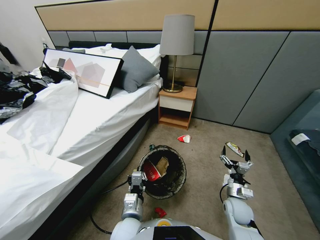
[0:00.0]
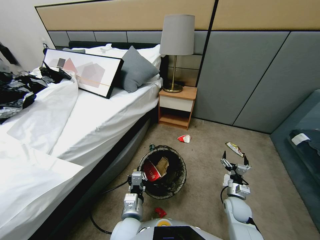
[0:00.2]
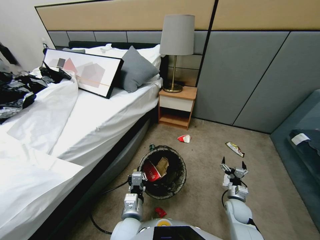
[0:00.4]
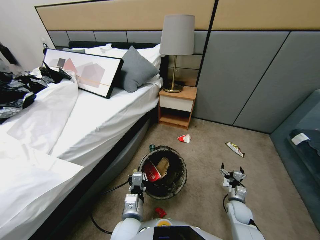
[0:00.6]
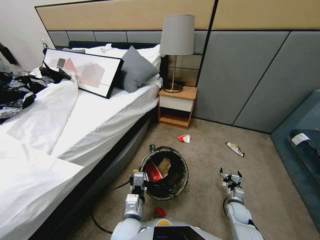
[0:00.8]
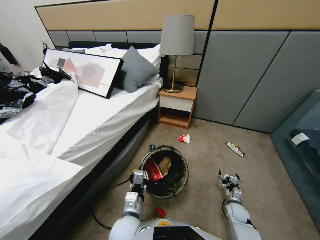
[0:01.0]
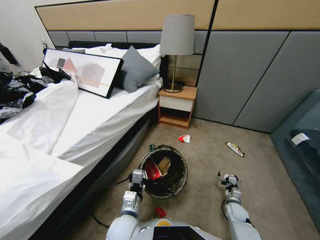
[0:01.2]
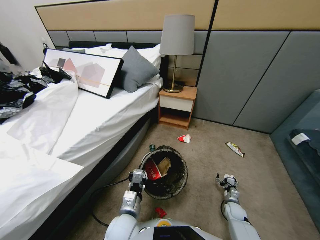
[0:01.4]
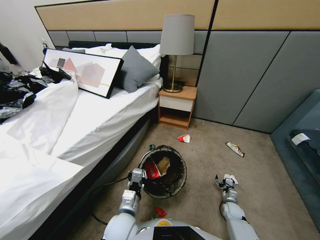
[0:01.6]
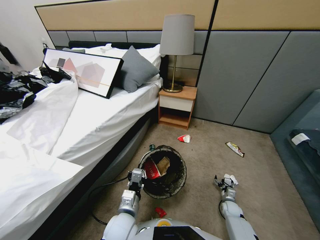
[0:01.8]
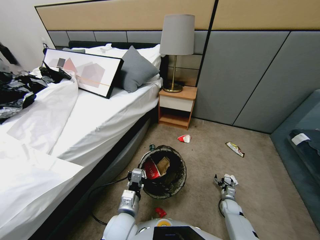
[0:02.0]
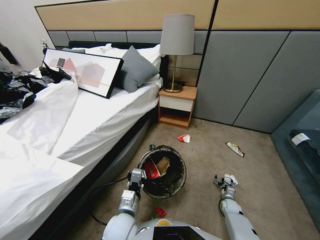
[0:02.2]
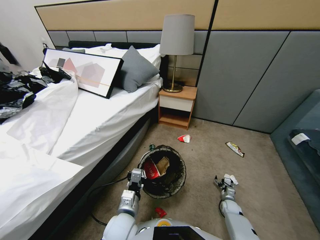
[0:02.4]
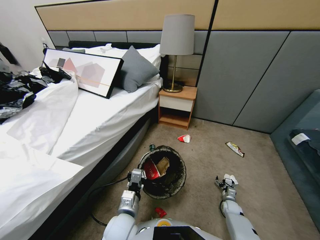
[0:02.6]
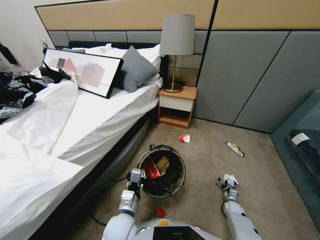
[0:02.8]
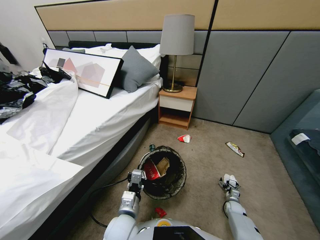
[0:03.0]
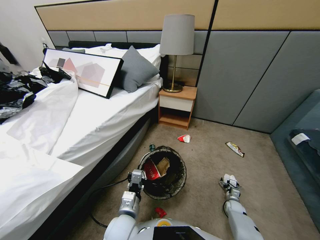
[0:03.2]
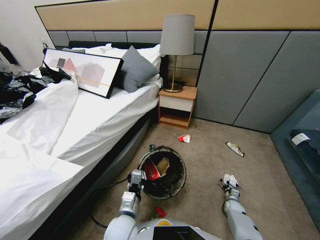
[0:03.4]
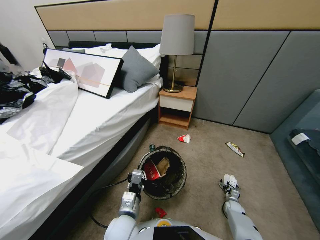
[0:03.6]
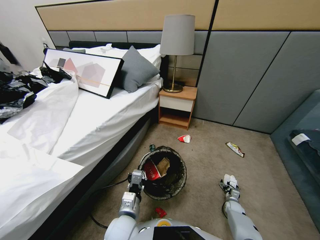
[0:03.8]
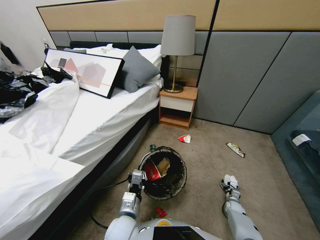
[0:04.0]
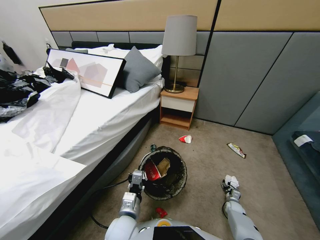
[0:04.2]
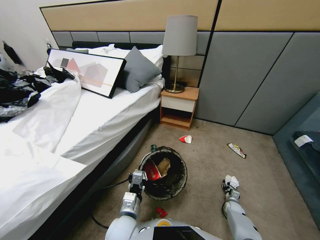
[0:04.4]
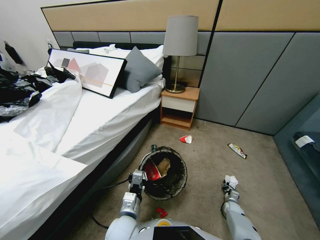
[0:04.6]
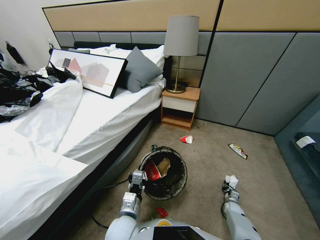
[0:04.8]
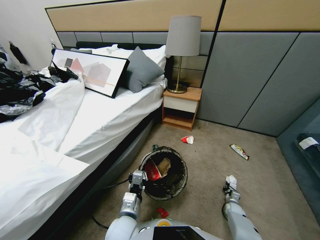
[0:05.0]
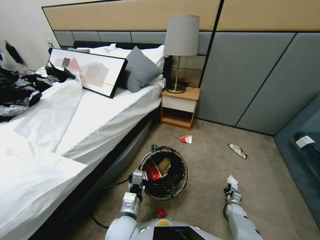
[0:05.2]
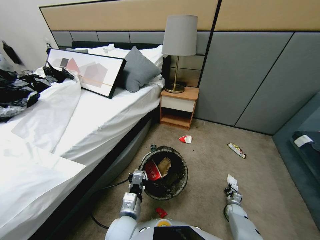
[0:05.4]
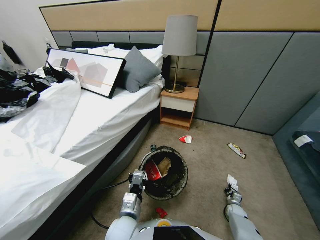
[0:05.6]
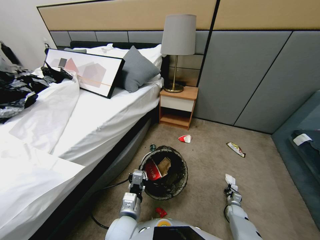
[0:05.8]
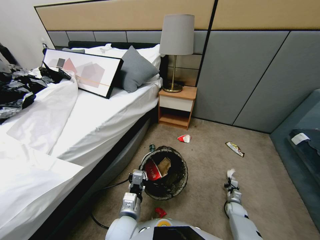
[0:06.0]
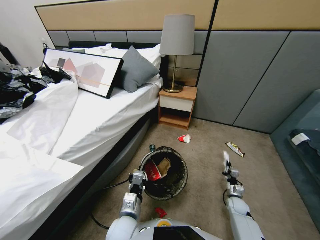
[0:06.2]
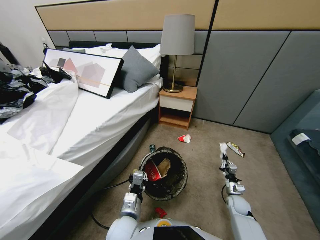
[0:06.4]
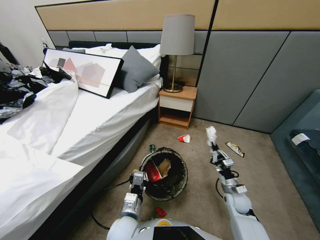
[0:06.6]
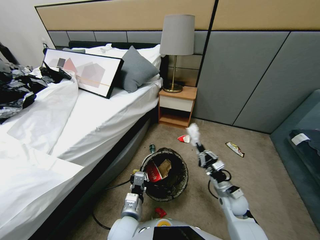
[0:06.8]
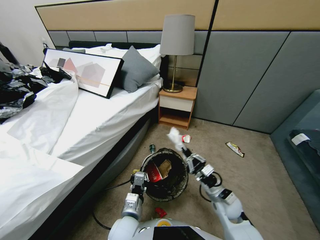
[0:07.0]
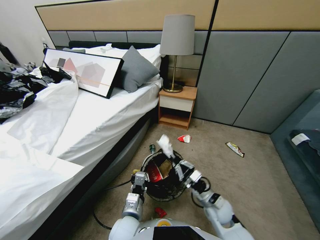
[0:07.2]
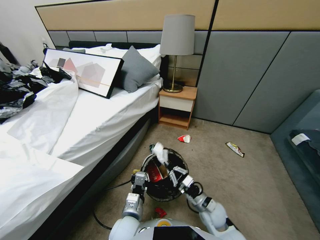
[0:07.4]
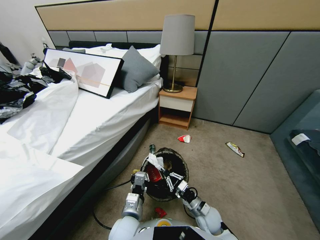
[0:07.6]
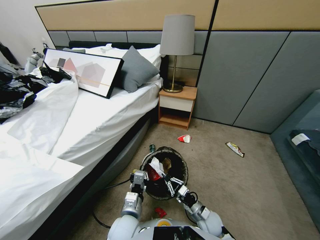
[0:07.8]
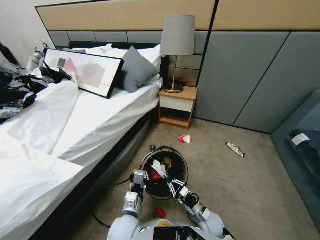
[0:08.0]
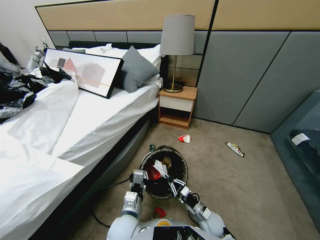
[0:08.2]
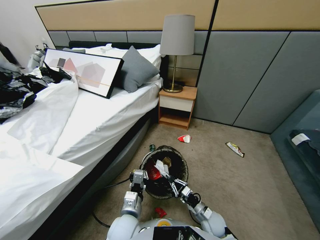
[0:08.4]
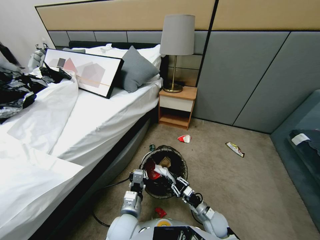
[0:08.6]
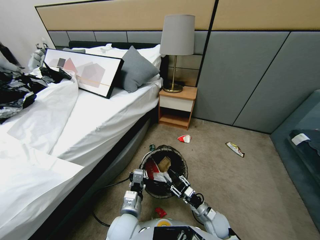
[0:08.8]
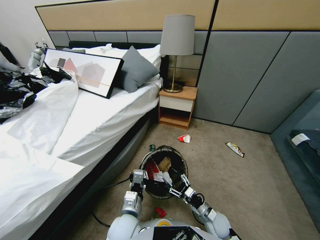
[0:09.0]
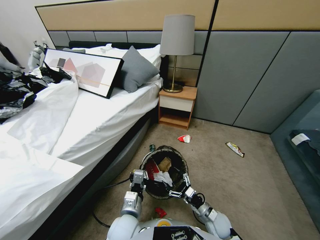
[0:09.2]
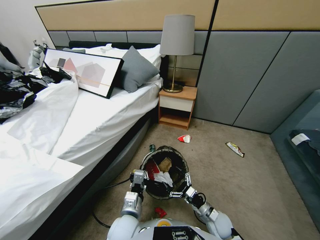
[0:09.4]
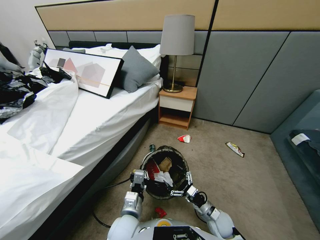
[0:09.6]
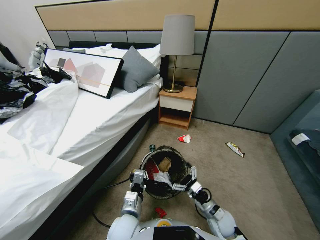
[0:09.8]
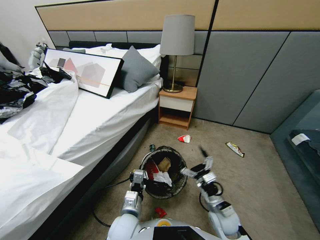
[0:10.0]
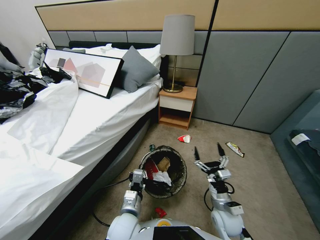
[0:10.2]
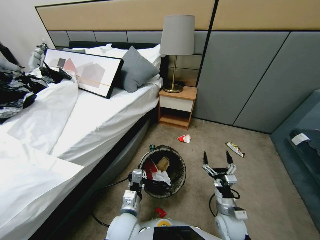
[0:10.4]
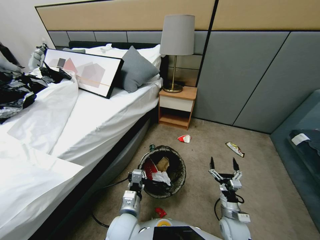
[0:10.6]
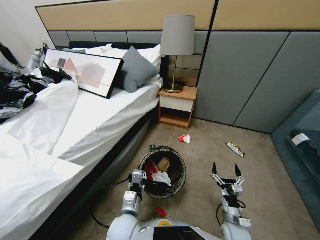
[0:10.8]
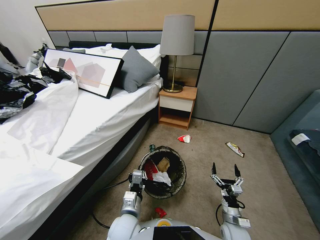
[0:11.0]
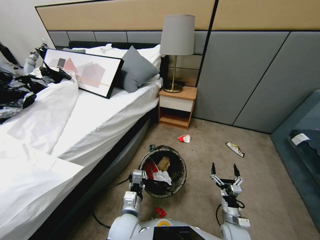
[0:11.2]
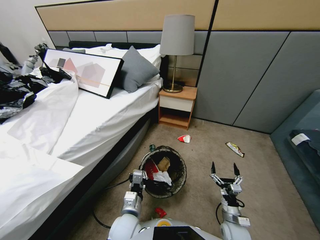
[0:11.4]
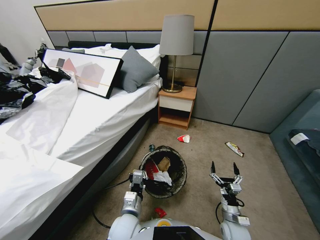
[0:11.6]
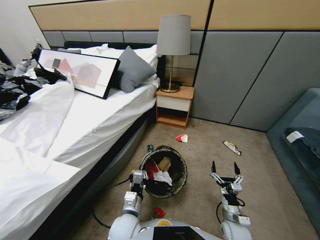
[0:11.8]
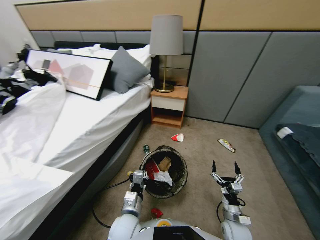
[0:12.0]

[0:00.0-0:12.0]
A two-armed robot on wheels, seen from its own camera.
Task of the whole recording: Pick up the trash bin, then pick up the garbage from the floor and place it into the trash bin.
0:00.0 to 0:01.6: The right gripper goes approximately 20 cm downward and to the right.
0:01.6 to 0:03.0: The right gripper changes place by approximately 5 cm.
0:03.0 to 0:04.4: The right gripper closes up.
0:04.4 to 0:06.0: The right gripper travels upward by approximately 5 cm, and closes its fingers.
0:06.0 to 0:07.6: The right gripper shifts about 25 cm to the left and upward.
0:07.6 to 0:09.0: The right gripper opens.

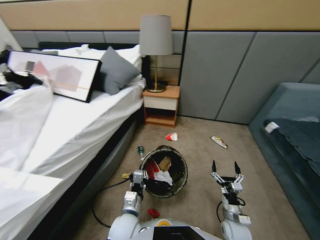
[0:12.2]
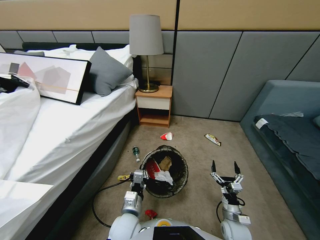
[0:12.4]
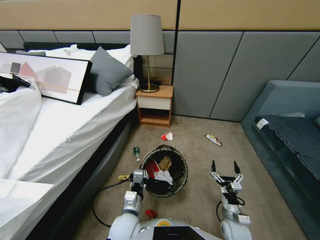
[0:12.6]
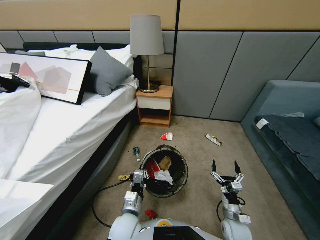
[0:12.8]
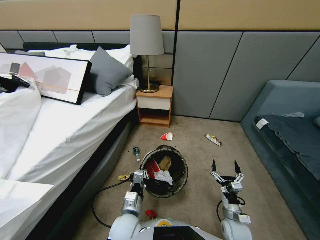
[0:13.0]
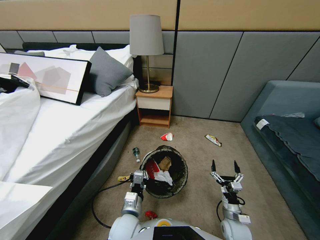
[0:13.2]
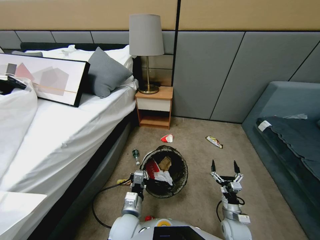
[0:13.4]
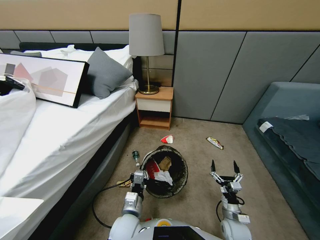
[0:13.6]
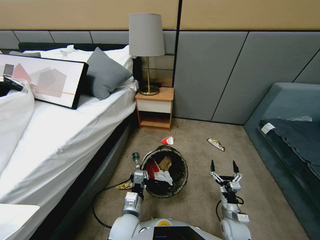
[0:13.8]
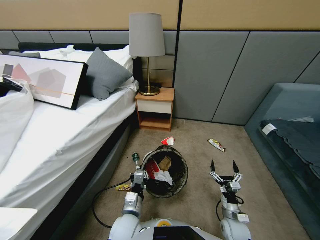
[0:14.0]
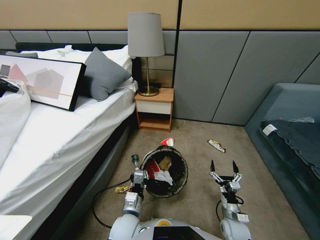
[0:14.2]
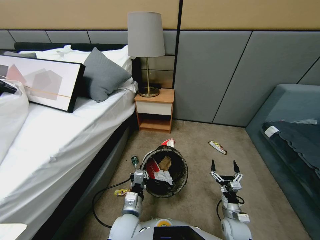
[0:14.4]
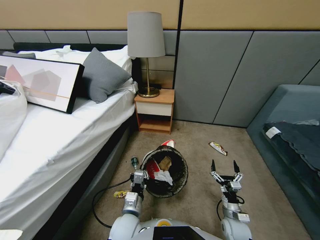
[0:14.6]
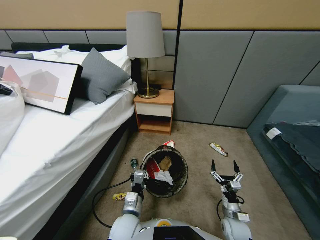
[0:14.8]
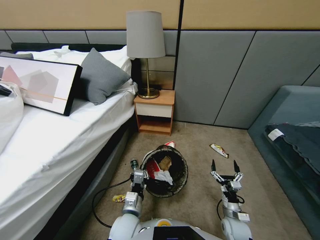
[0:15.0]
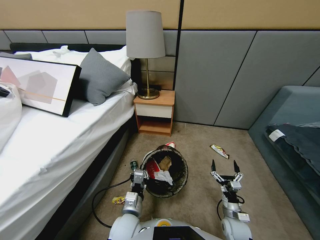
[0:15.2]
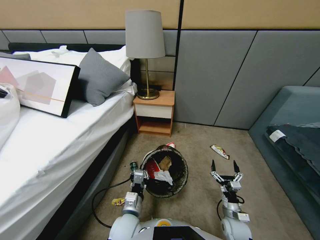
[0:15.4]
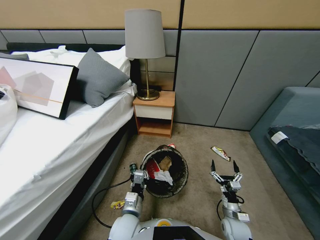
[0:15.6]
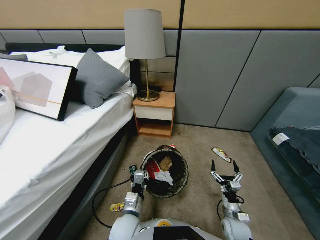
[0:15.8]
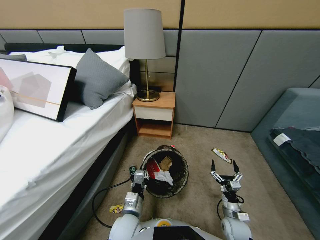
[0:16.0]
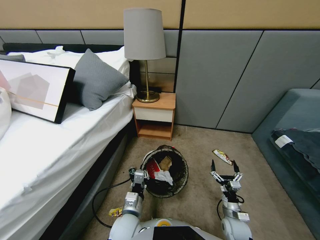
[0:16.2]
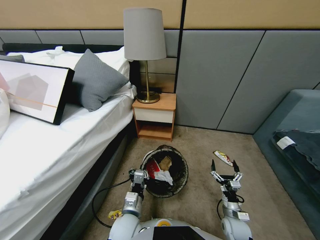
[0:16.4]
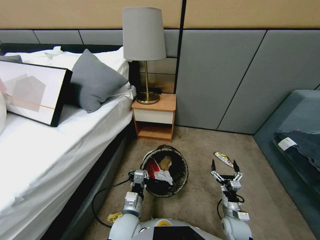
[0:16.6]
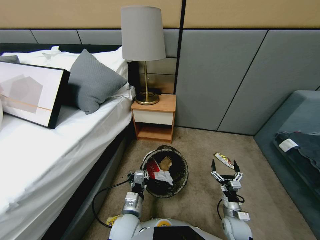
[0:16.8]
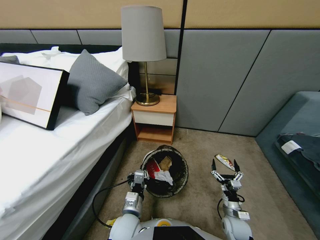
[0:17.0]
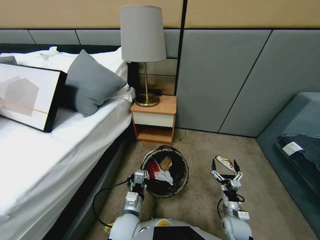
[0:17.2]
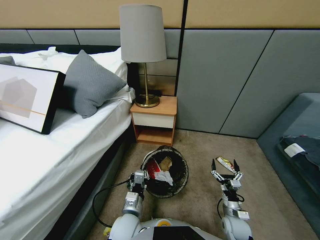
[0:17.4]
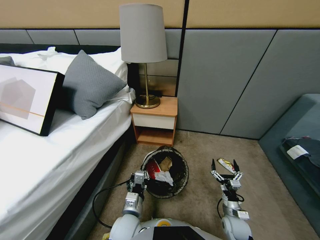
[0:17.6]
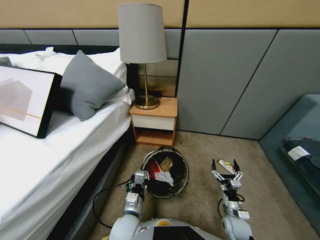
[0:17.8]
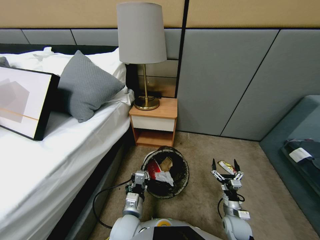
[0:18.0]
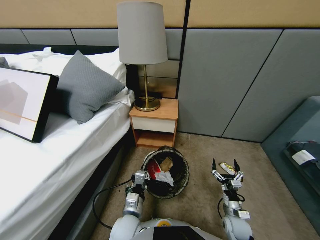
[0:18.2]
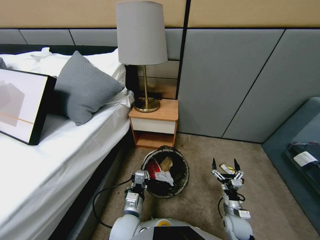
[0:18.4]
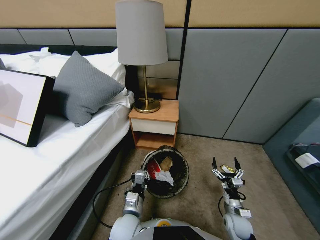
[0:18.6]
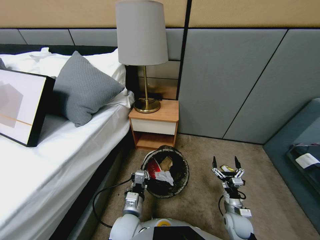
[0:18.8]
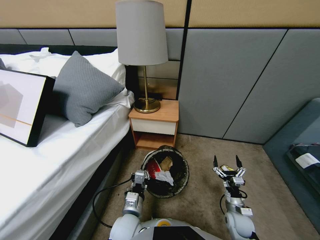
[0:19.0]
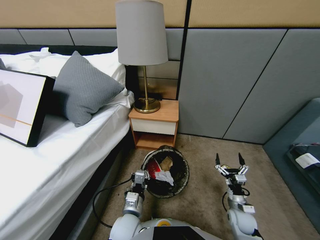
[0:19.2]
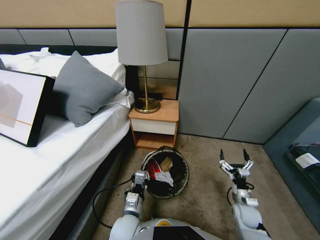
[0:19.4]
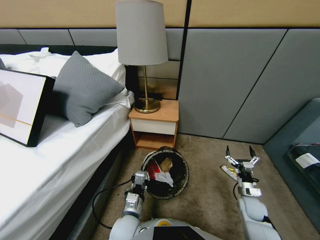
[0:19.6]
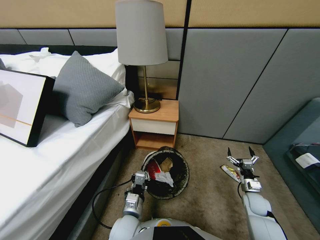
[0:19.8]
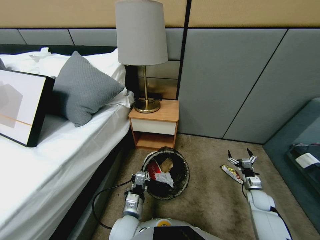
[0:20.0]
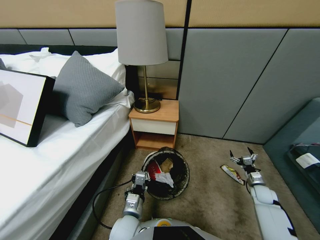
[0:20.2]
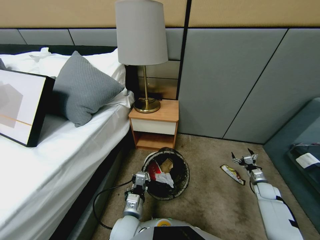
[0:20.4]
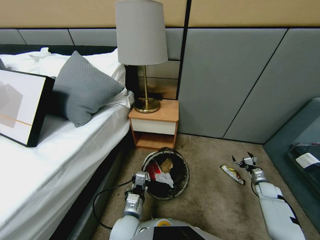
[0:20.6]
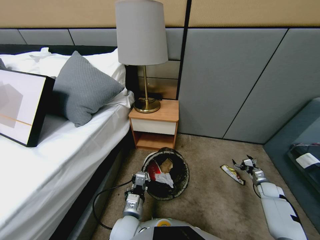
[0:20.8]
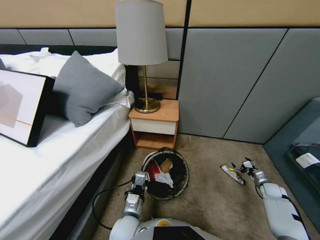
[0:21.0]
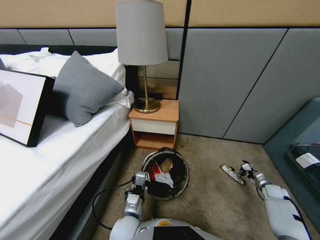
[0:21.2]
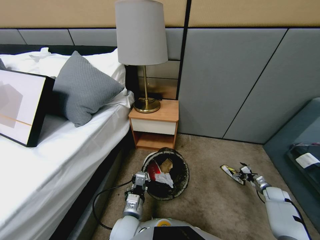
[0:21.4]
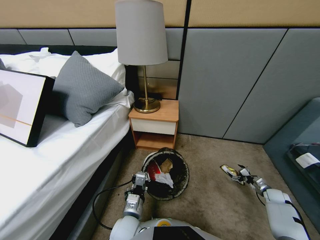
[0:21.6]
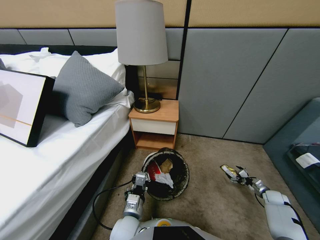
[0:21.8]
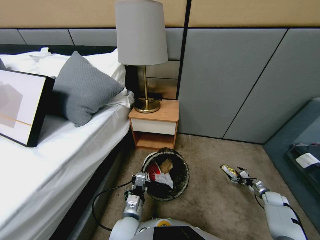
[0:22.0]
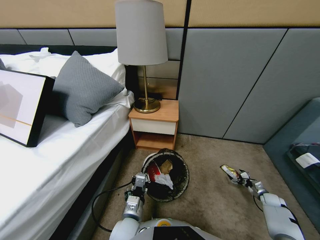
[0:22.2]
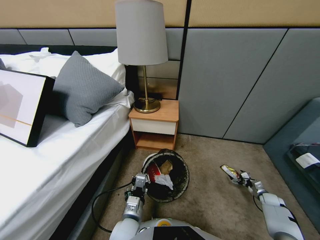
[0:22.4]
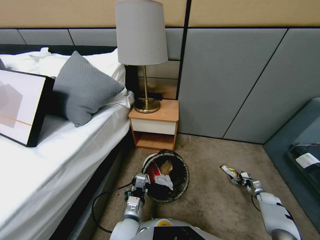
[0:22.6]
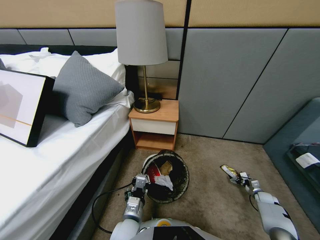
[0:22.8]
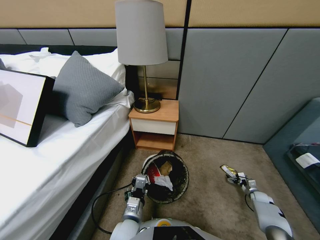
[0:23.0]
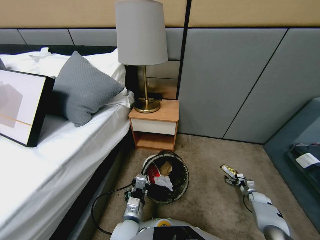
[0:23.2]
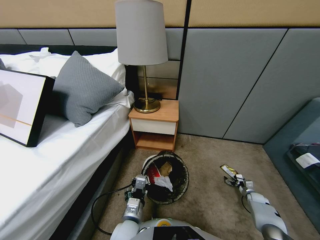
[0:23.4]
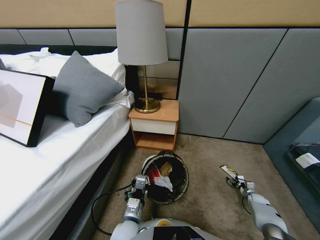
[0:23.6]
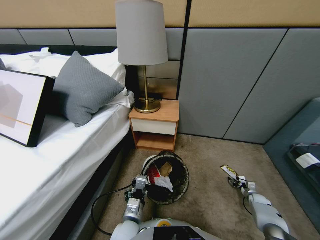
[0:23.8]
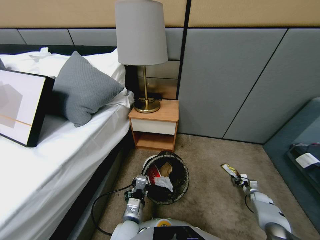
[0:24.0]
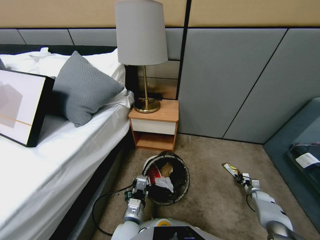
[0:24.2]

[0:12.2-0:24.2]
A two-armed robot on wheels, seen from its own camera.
Task of the whole recording: Pick up the trash bin, then pick up the garbage from the floor and place it into the trash bin.
0:18.2 to 0:19.8: The right gripper moves to the right and forward, some 20 cm.
0:19.8 to 0:21.2: The right gripper is displaced to the right by roughly 15 cm.
0:21.2 to 0:22.6: The right gripper travels downward by approximately 5 cm.
0:22.6 to 0:24.2: The right gripper closes its fingers.
